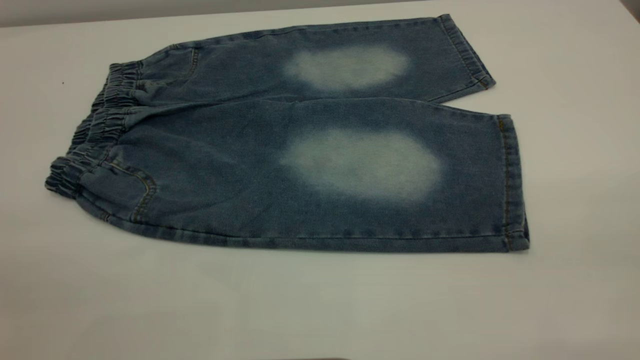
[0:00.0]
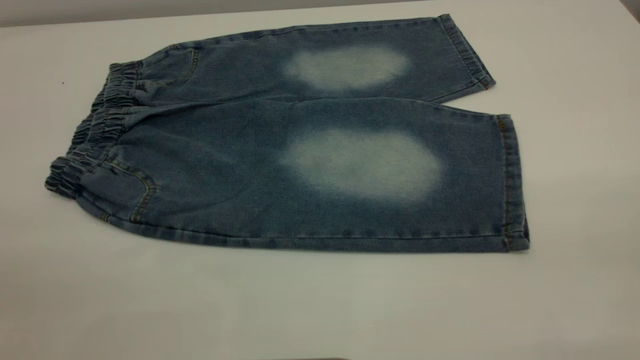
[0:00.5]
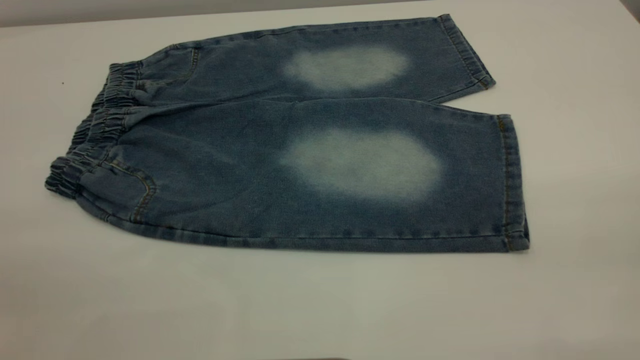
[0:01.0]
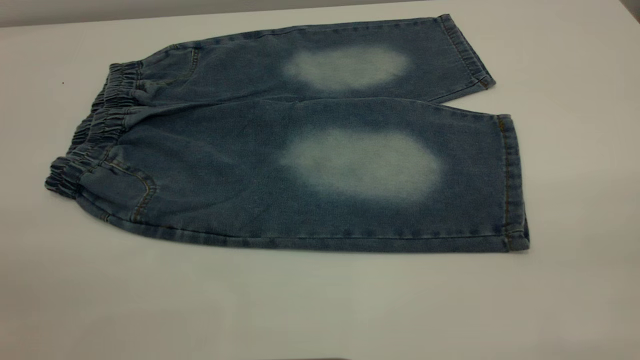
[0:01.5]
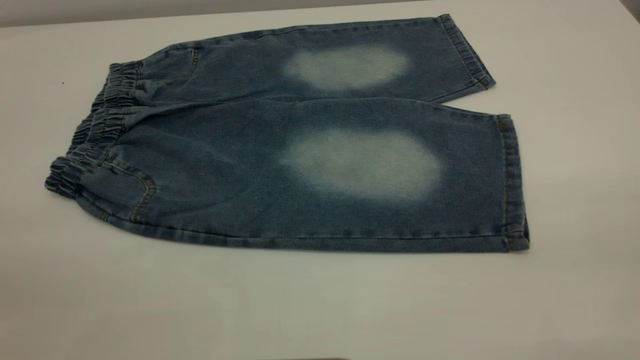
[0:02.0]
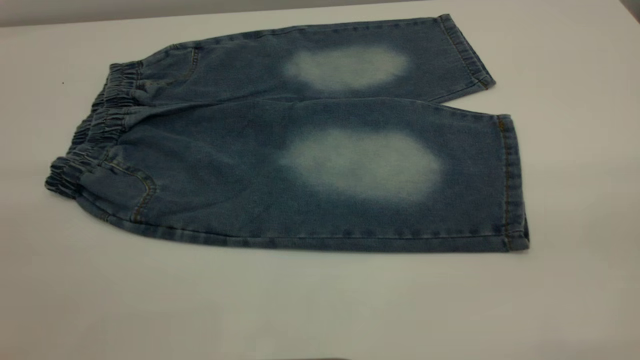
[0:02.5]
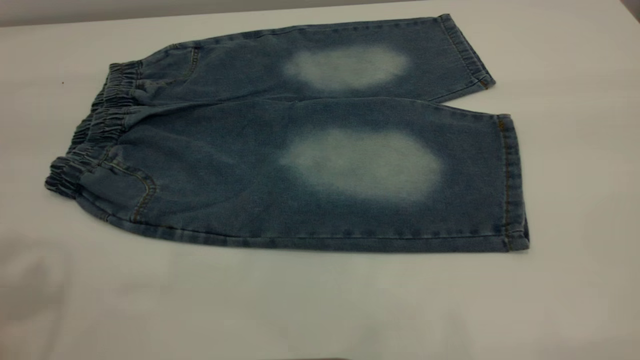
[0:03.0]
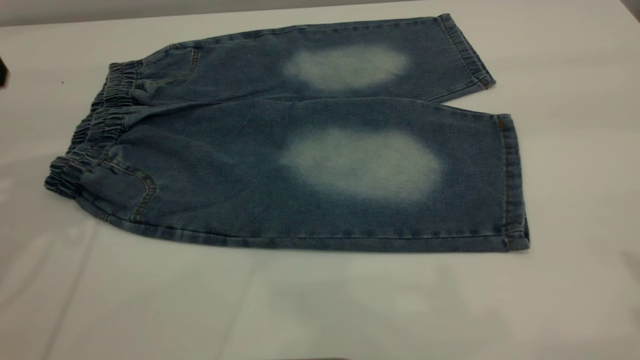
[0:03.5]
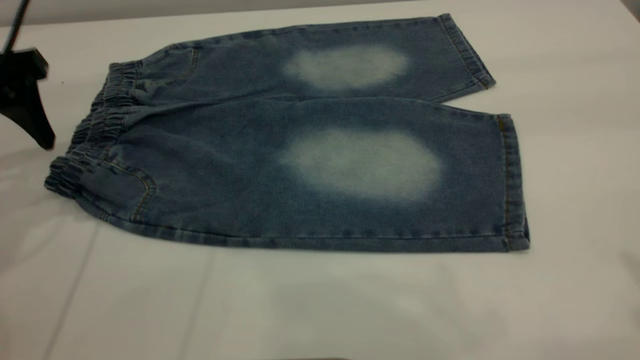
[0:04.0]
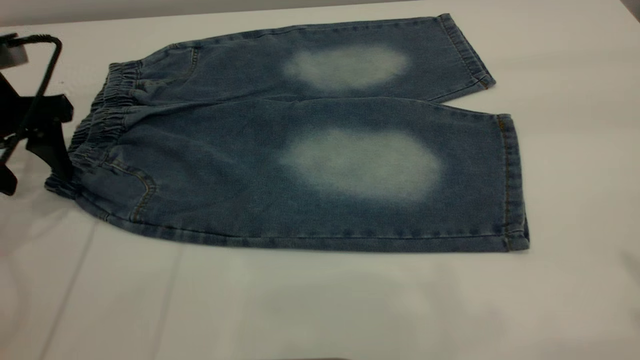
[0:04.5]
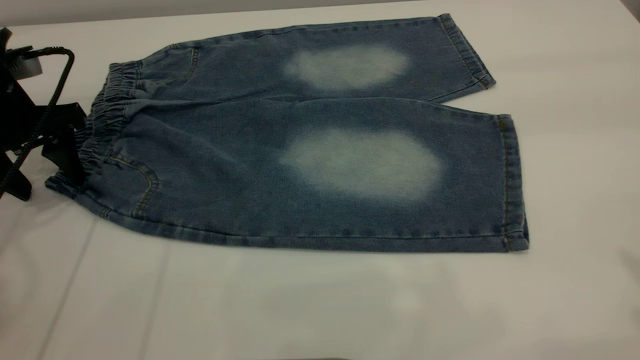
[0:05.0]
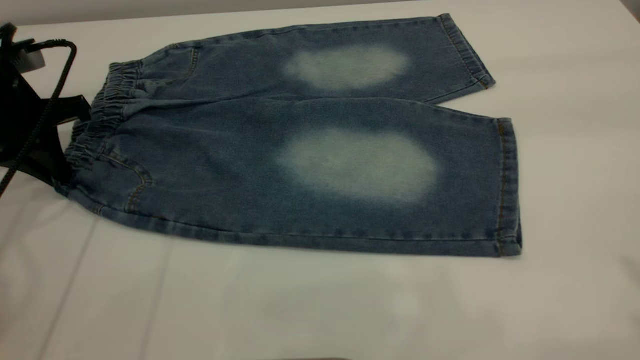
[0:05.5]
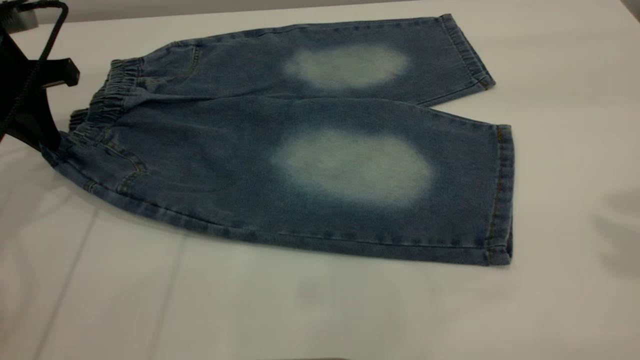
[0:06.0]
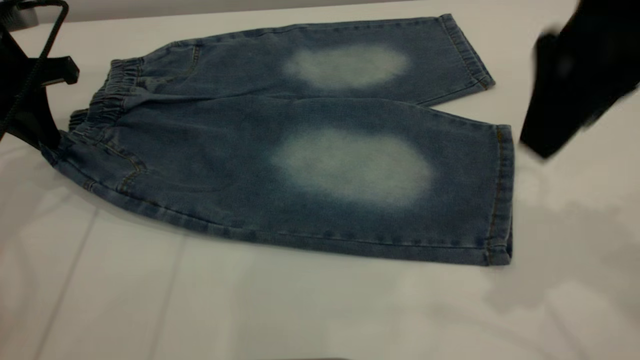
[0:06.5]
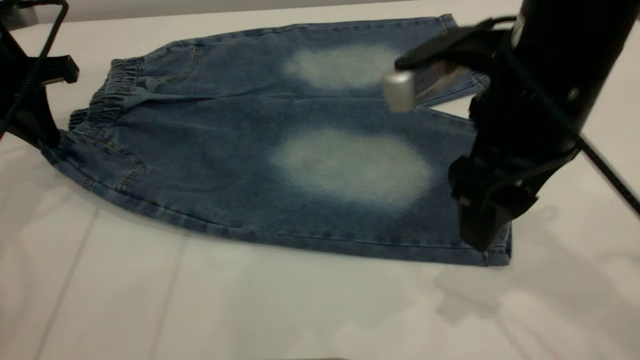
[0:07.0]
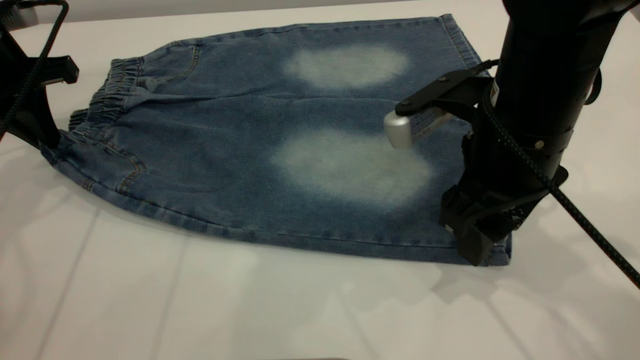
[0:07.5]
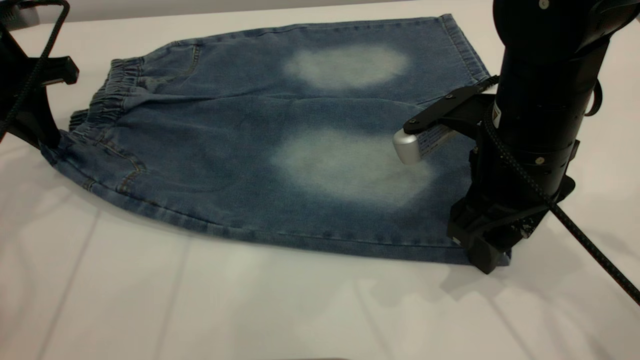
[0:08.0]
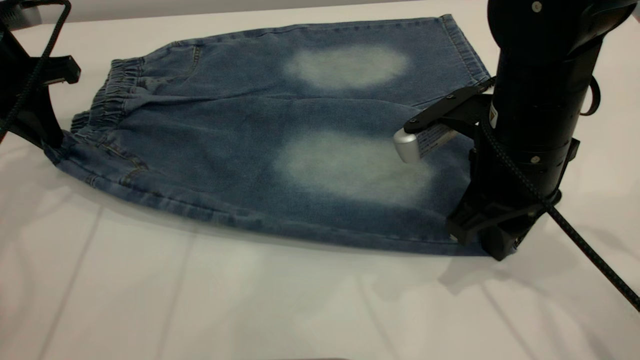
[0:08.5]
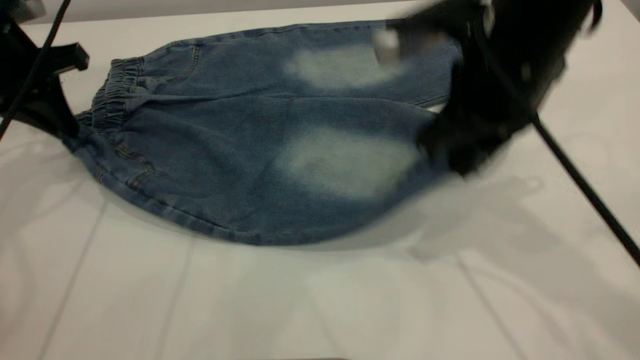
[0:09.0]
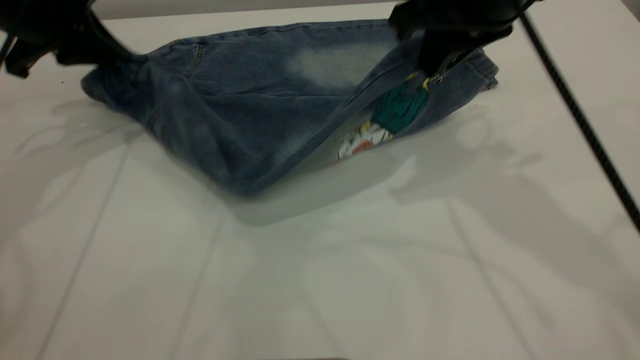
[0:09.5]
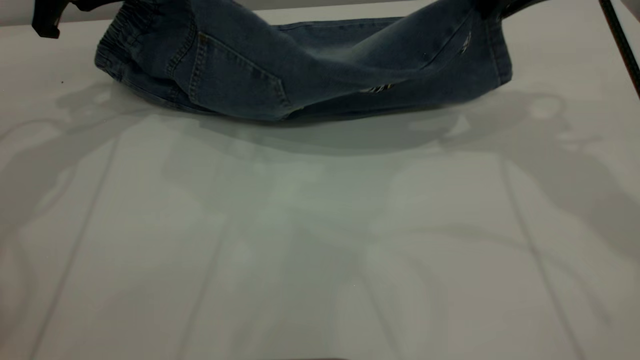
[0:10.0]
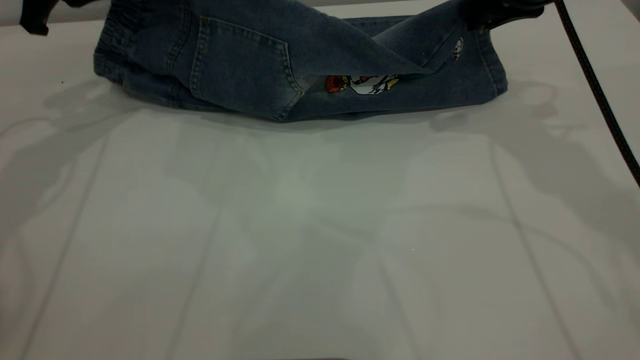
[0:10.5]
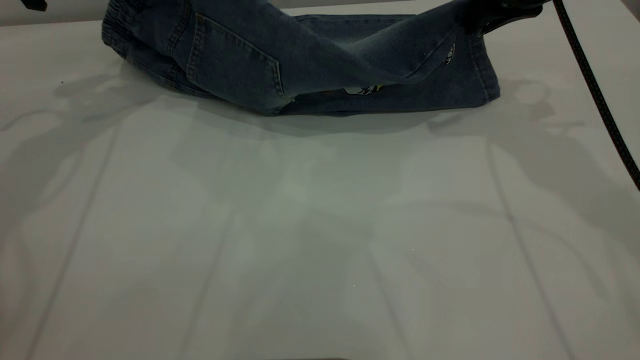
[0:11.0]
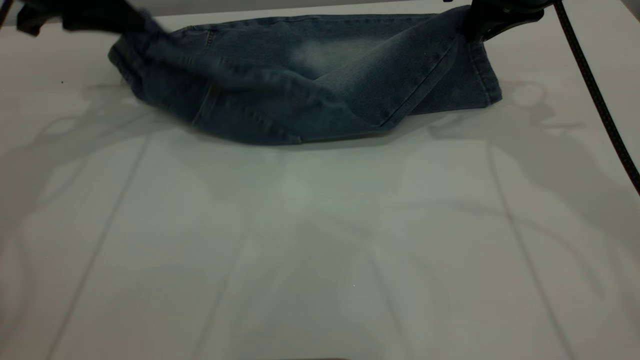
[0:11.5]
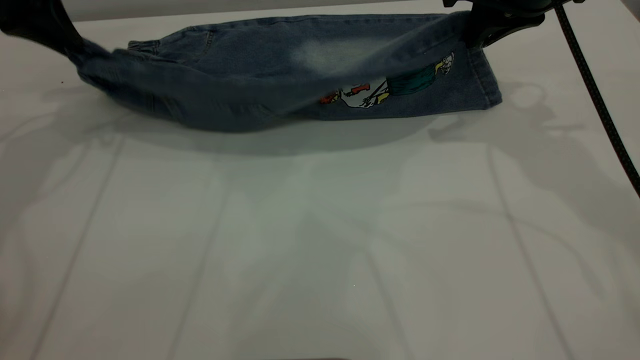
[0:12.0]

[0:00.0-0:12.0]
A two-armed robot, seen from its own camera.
0:00.0 to 0:02.0: Both grippers stay put.
0:02.0 to 0:04.0: The left gripper is displaced forward and downward by about 35 cm.
0:04.0 to 0:06.0: The right gripper shifts roughly 5 cm forward; the left gripper changes place by approximately 5 cm, and closes its fingers.
0:06.0 to 0:08.0: The right gripper shifts about 30 cm downward and to the left.
0:08.0 to 0:10.0: The right gripper shifts some 15 cm upward, forward and to the right, and closes its fingers. Meanwhile the left gripper changes place by roughly 5 cm.

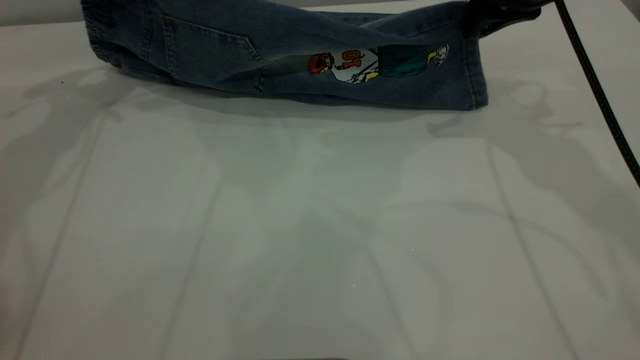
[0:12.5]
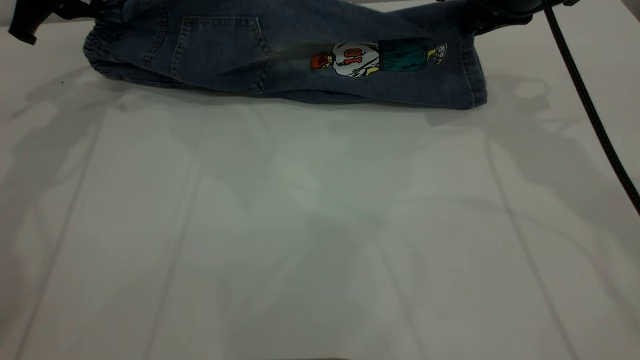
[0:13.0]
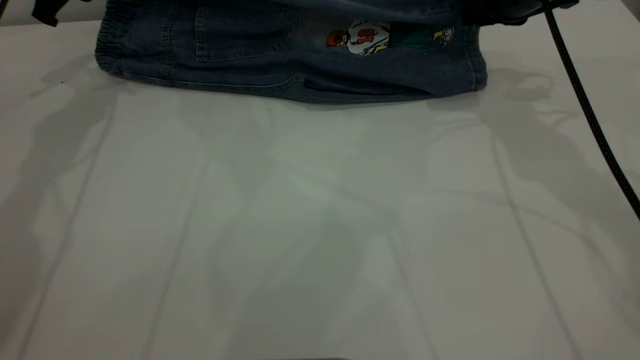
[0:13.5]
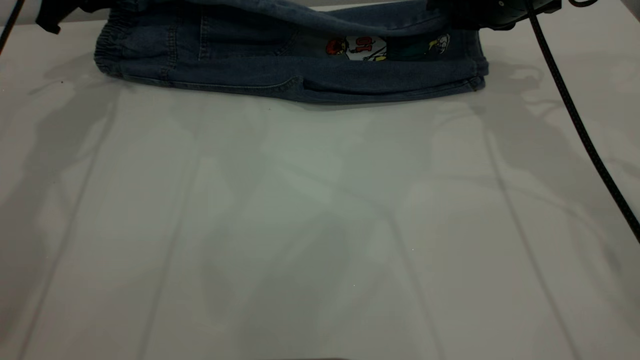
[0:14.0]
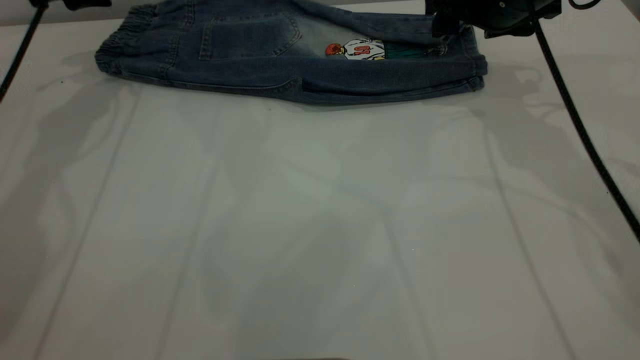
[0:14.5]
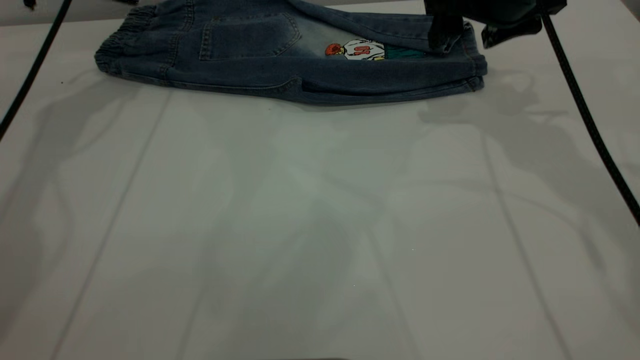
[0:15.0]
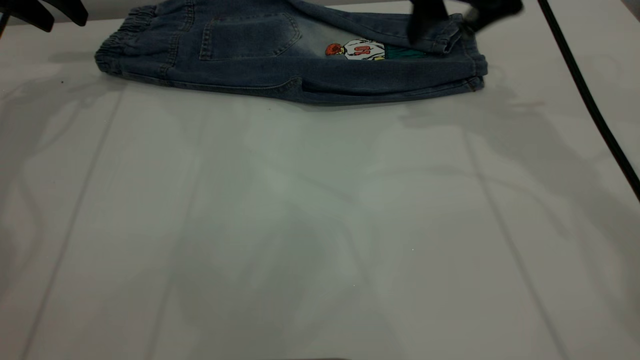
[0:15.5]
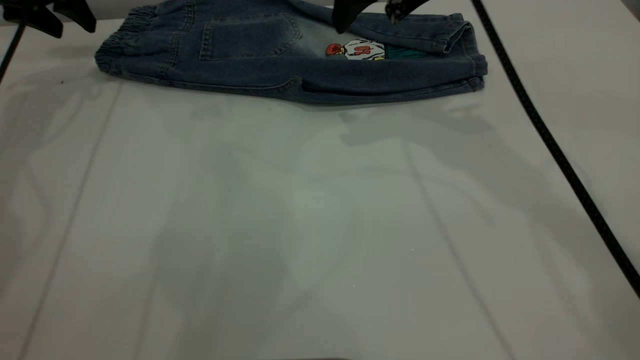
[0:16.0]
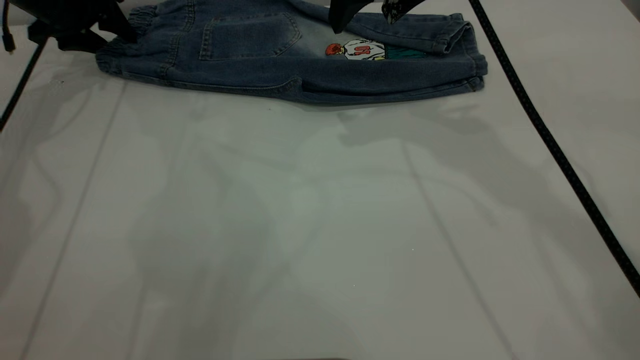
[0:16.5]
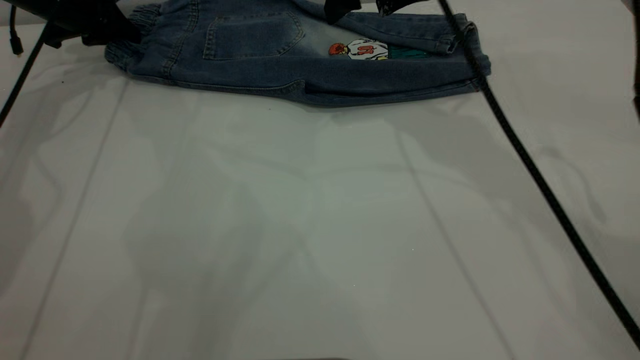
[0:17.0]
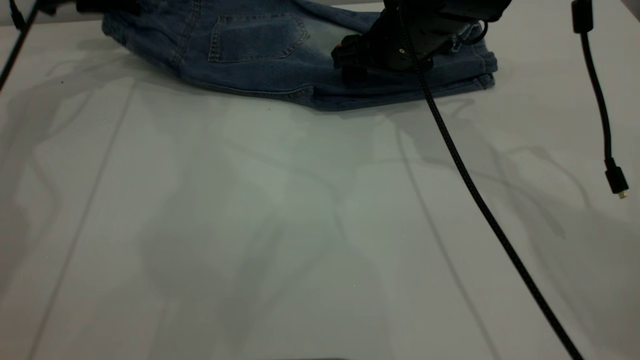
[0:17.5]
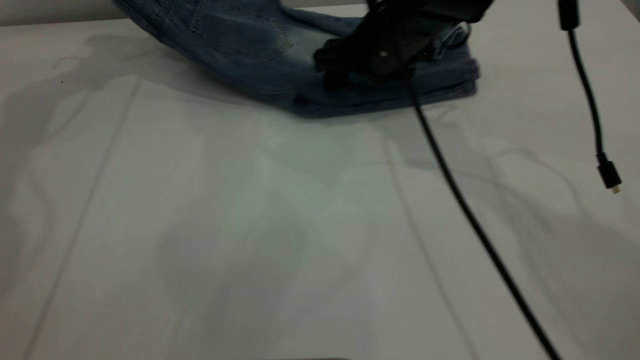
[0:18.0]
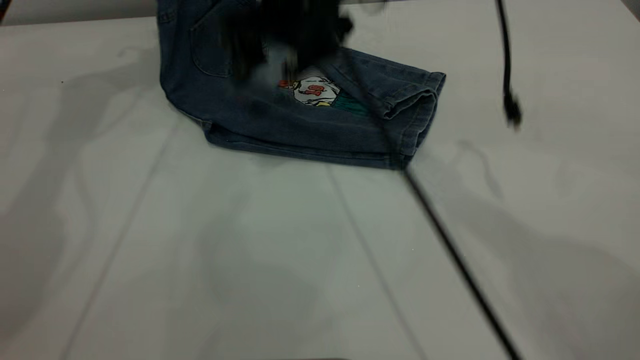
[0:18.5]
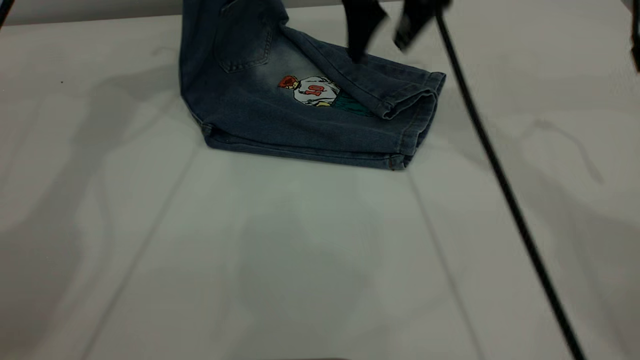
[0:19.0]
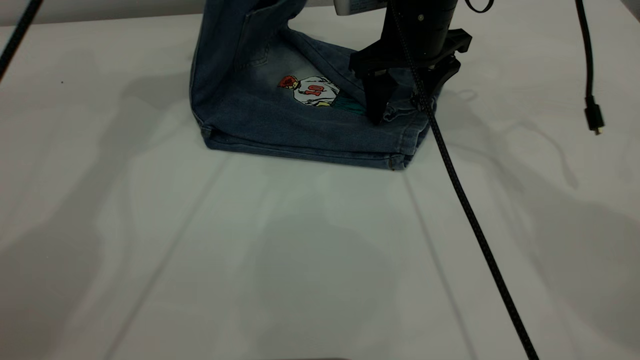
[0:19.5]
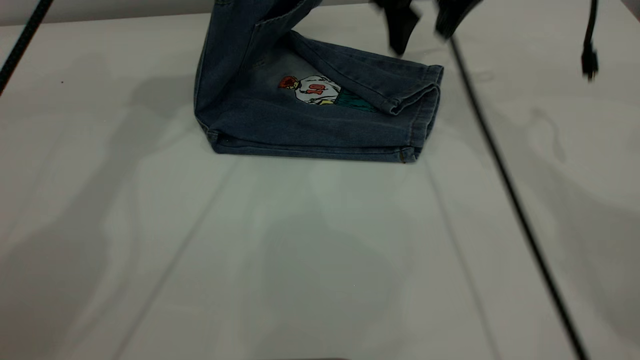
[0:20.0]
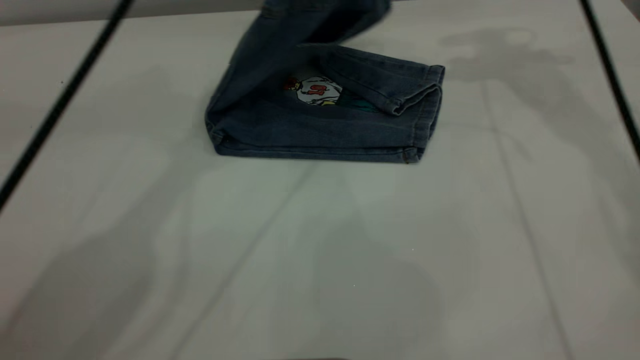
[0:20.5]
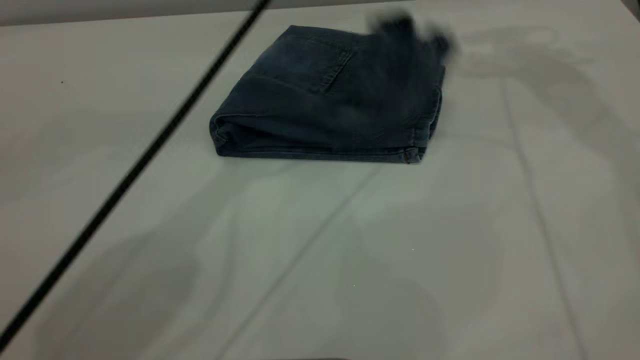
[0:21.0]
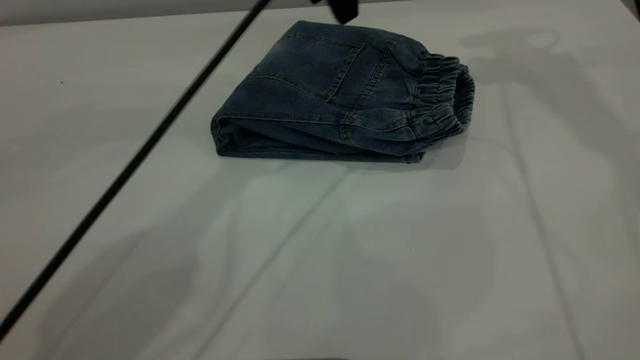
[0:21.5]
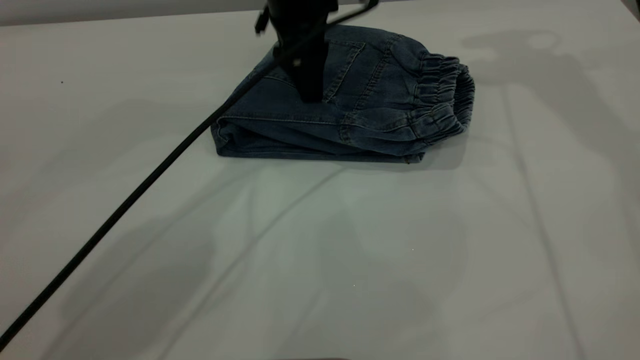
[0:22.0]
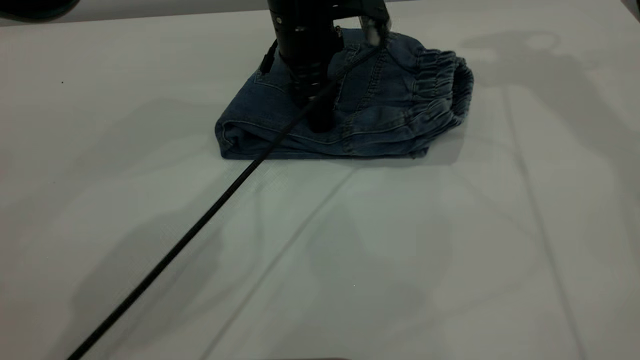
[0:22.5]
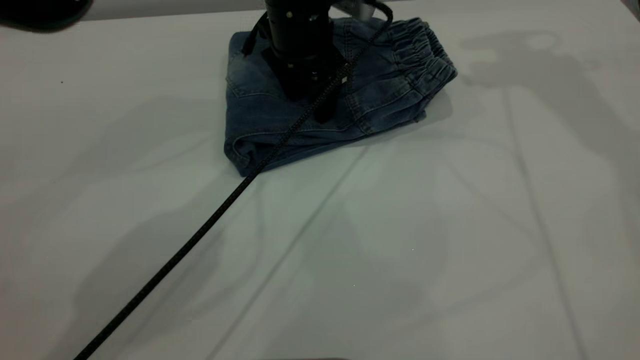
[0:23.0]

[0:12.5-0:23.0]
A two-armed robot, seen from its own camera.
Step, 0:12.5 to 0:14.5: Fold the bottom of the pants upward.
Step, 0:15.0 to 0:21.0: Fold the pants from left to right.
0:12.5 to 0:14.5: The right gripper moves approximately 5 cm, and opens its fingers; the left gripper travels forward by roughly 5 cm, and opens up.
0:14.5 to 0:16.5: The right gripper heads to the left and upward, covering some 10 cm. Meanwhile the left gripper heads downward, covering roughly 5 cm.
0:16.5 to 0:19.0: The left gripper goes approximately 25 cm upward and to the right, and closes its fingers. The right gripper travels downward and back again, about 15 cm each way.
0:19.0 to 0:21.0: The right gripper heads to the right and upward, covering roughly 20 cm; the left gripper travels to the right and backward by about 20 cm, and opens.
0:21.0 to 0:23.0: The left gripper goes approximately 10 cm downward, and opens.
